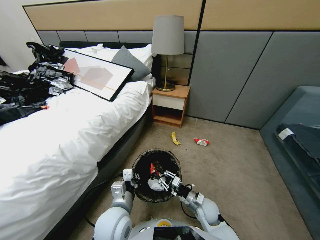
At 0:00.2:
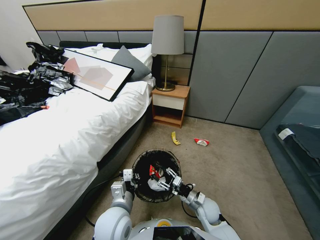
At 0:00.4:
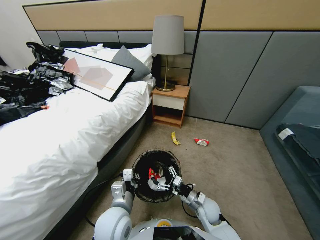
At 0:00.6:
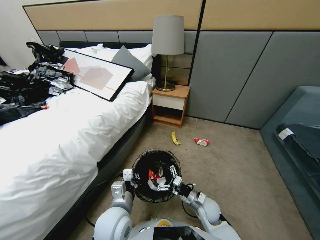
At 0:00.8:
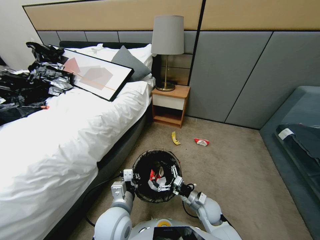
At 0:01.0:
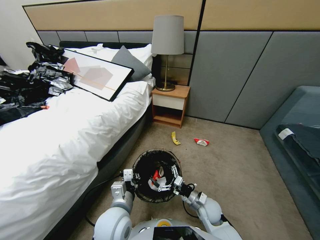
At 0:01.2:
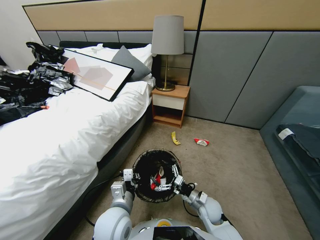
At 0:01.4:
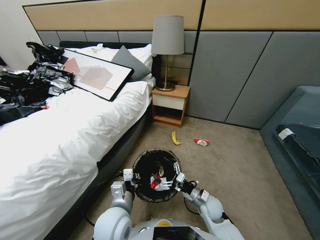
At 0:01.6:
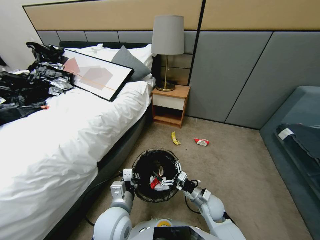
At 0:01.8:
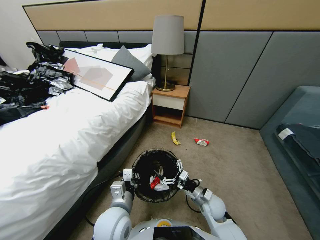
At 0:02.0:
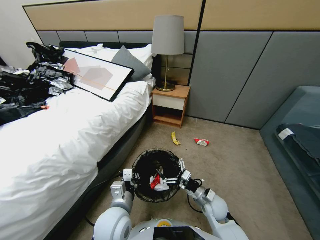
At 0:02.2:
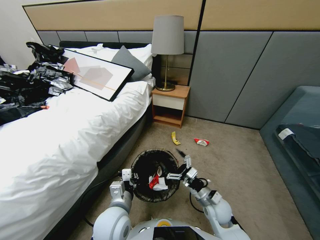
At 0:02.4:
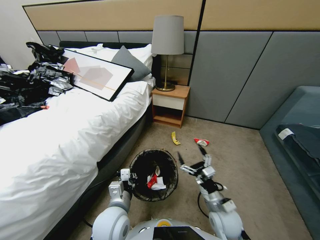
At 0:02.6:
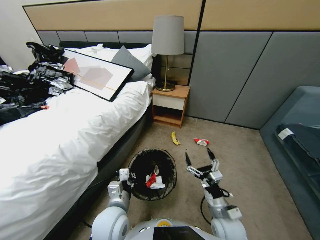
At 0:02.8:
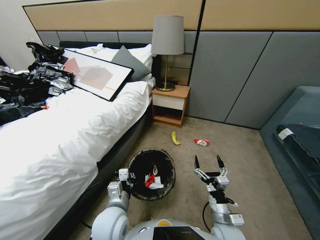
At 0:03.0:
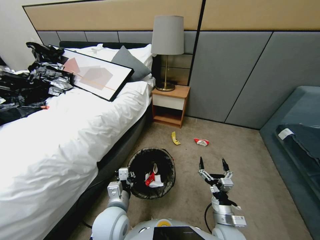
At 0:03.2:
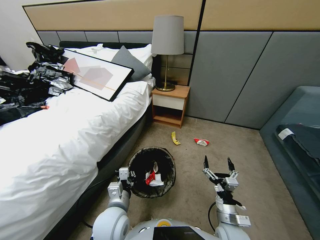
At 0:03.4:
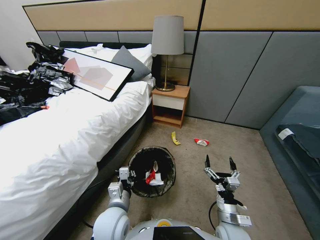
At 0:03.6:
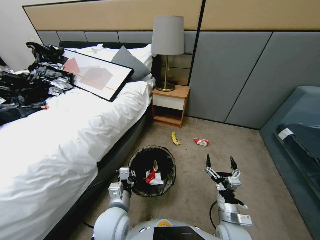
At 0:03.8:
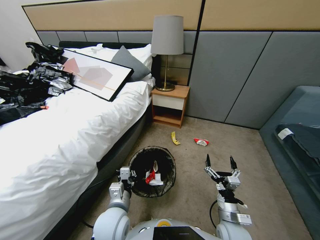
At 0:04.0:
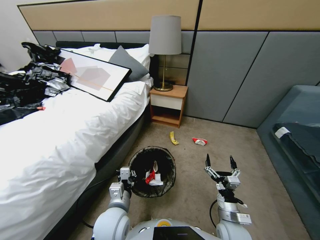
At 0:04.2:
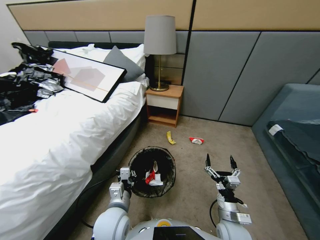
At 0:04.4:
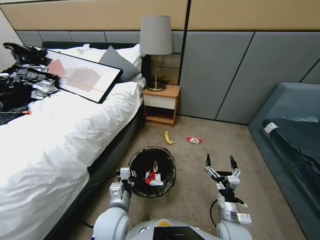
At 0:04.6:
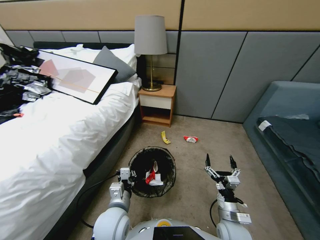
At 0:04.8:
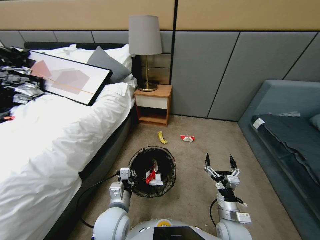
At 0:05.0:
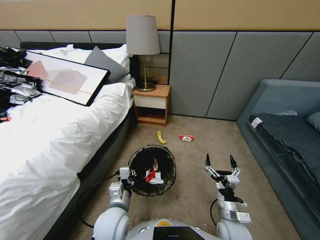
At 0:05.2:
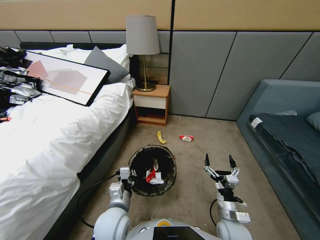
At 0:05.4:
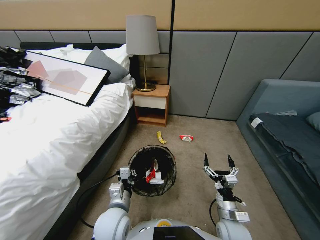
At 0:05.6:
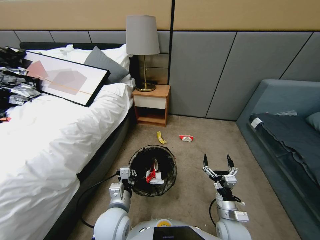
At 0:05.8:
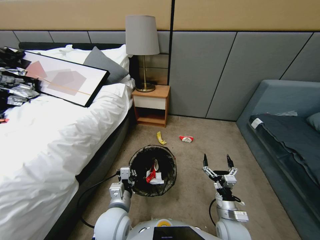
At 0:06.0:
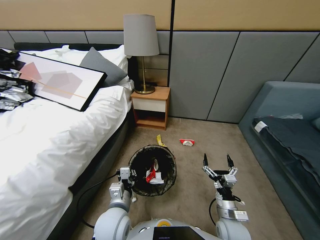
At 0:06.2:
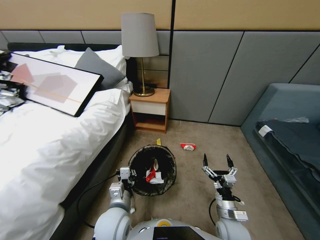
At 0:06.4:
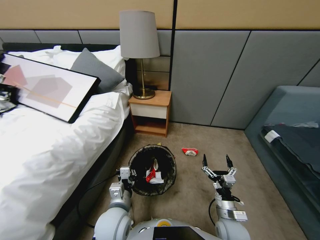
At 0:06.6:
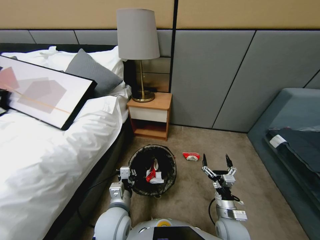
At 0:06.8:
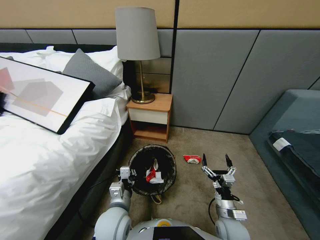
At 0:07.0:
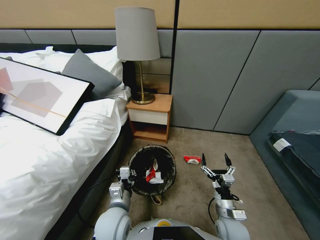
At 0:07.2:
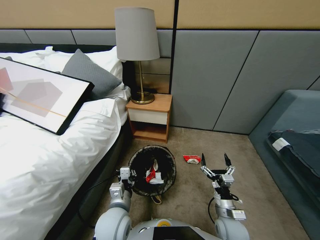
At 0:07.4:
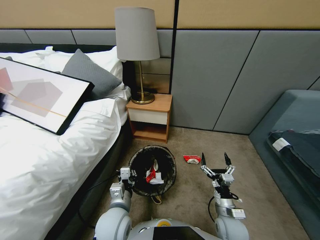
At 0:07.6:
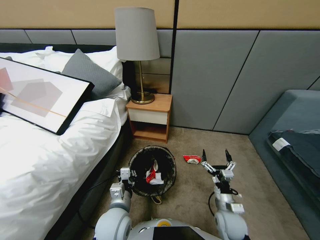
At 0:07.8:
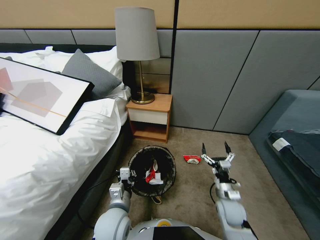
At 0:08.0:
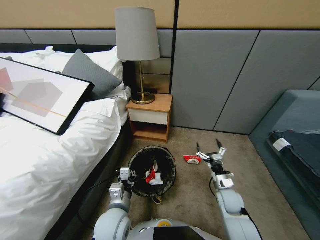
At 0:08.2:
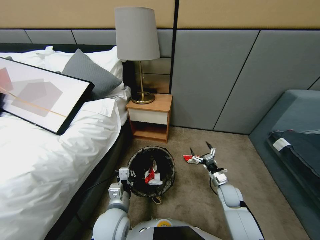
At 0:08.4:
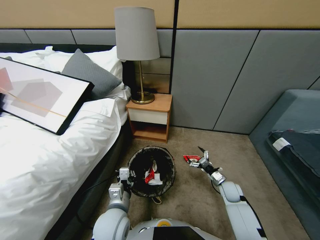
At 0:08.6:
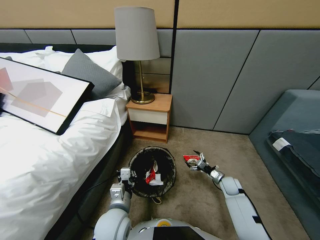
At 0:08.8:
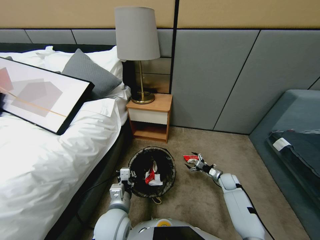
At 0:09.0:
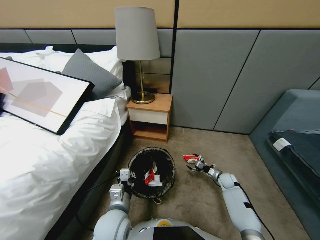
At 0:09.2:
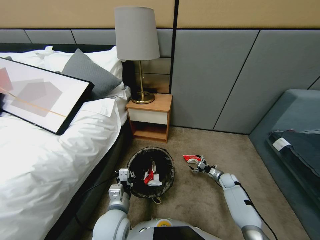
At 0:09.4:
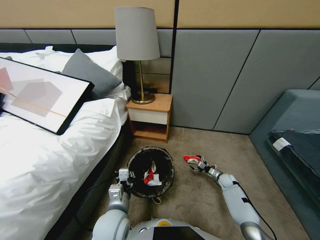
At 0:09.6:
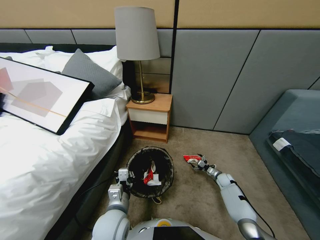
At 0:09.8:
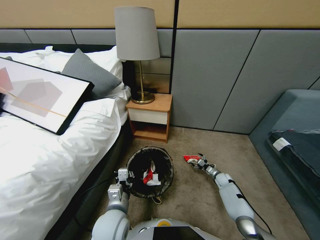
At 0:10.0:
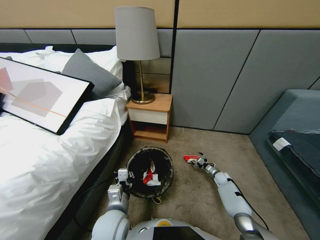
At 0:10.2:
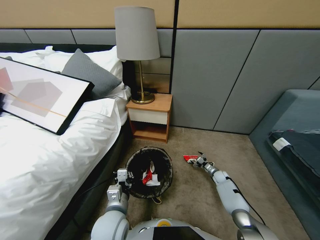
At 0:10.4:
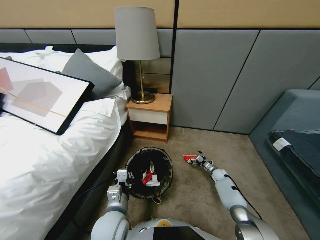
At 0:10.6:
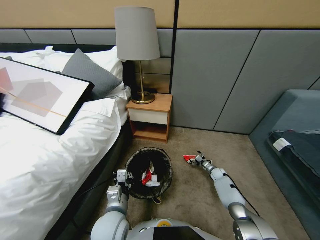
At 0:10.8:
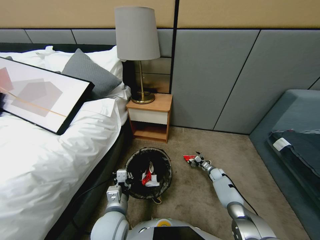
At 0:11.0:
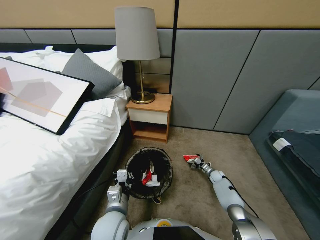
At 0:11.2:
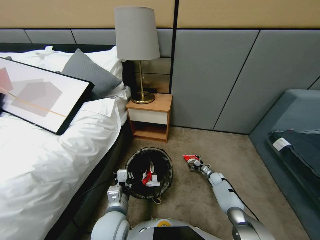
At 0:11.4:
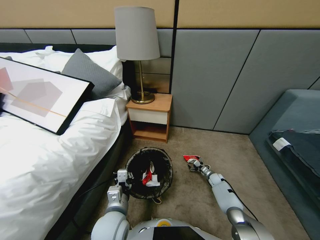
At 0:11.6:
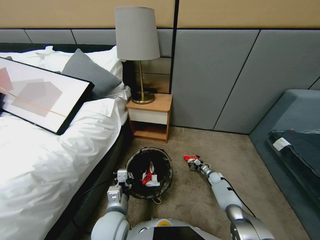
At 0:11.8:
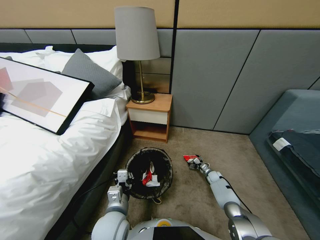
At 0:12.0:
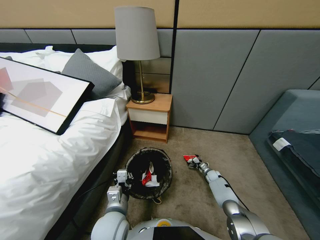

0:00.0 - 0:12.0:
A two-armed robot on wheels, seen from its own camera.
Task of the whole recording: Pick up the trash bin, then pick up the garbage from the floor and place it into the trash bin.
0:00.0 - 0:01.6: The right gripper opens.
0:01.6 - 0:03.0: The right gripper is displaced backward by approximately 10 cm.
0:06.0 - 0:07.6: The right gripper changes place by some 5 cm.
0:07.6 - 0:09.0: The right gripper moves forward, to the right and downward, roughly 25 cm.
0:09.0 - 0:10.4: The right gripper shifts about 5 cm forward.
0:10.4 - 0:12.0: The grippers move only a little.

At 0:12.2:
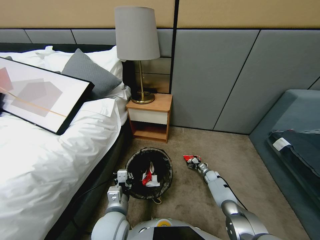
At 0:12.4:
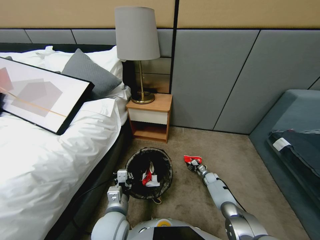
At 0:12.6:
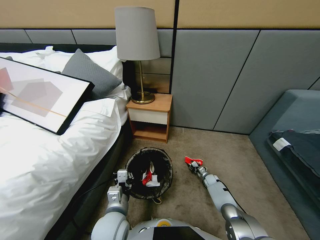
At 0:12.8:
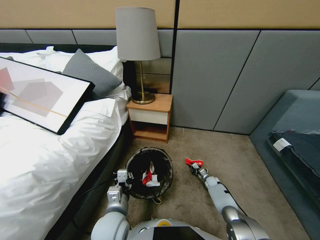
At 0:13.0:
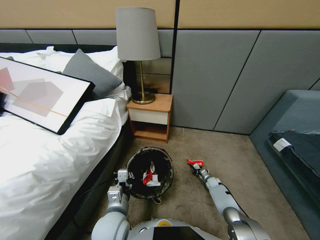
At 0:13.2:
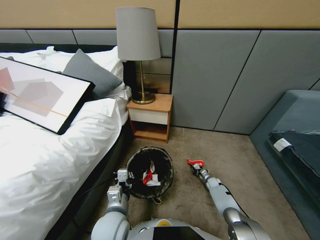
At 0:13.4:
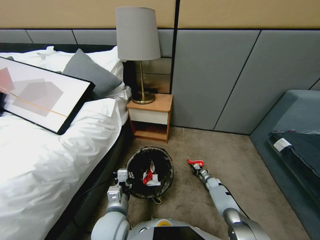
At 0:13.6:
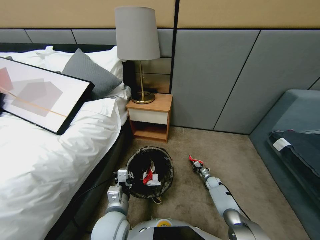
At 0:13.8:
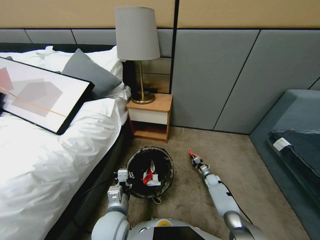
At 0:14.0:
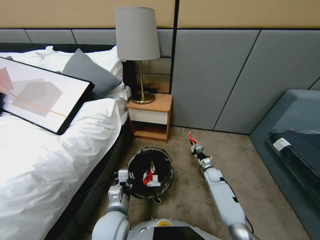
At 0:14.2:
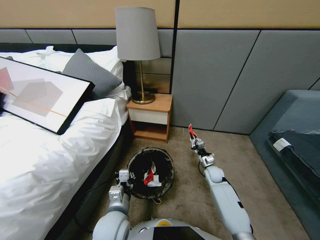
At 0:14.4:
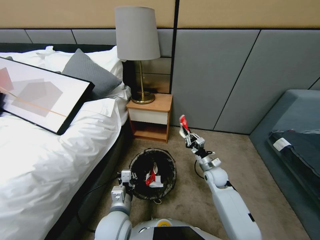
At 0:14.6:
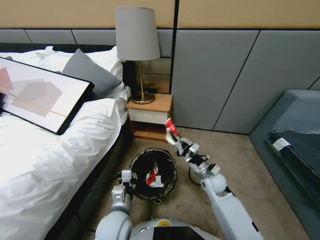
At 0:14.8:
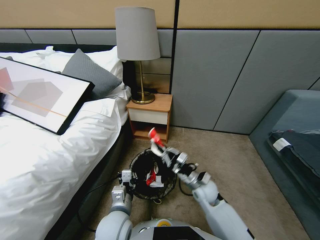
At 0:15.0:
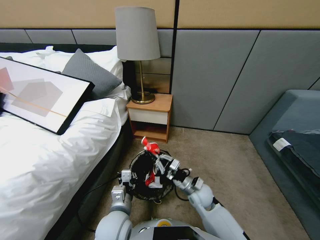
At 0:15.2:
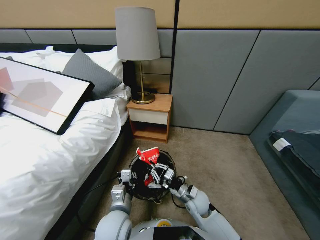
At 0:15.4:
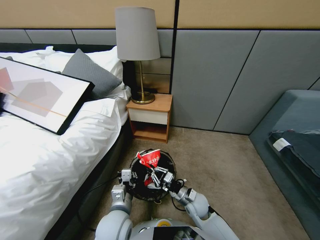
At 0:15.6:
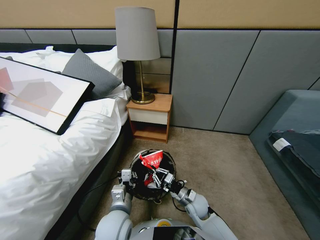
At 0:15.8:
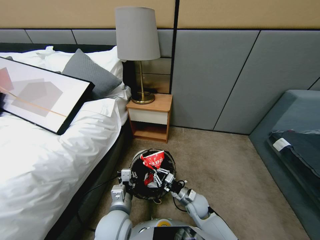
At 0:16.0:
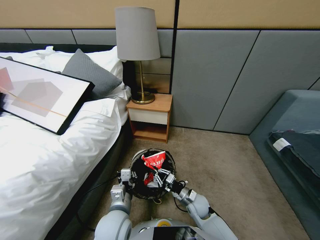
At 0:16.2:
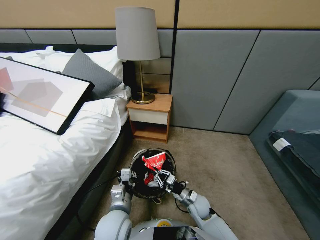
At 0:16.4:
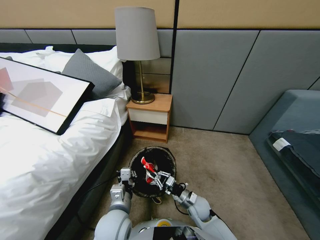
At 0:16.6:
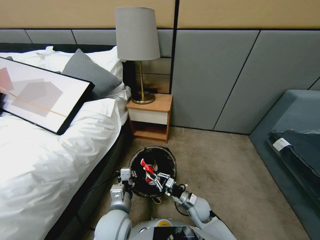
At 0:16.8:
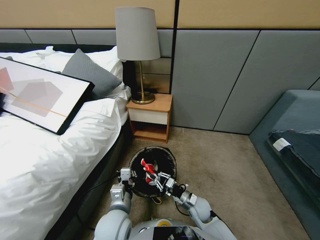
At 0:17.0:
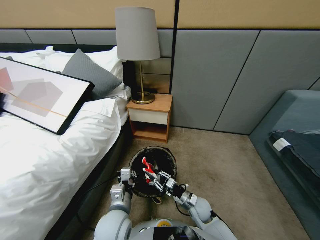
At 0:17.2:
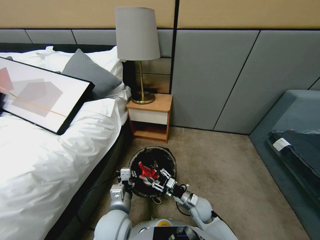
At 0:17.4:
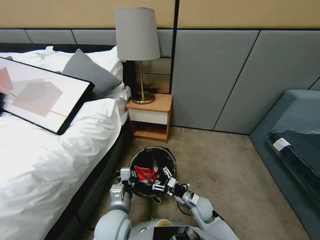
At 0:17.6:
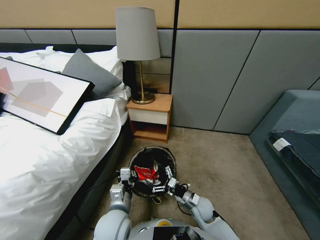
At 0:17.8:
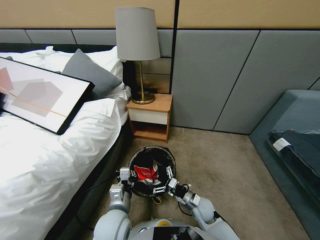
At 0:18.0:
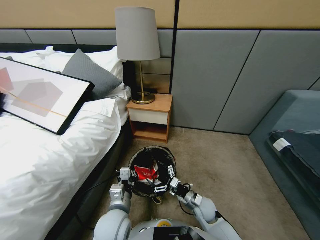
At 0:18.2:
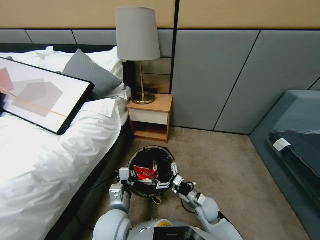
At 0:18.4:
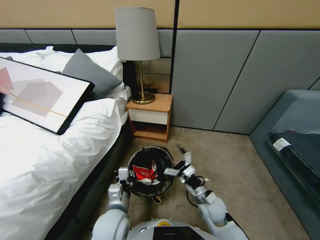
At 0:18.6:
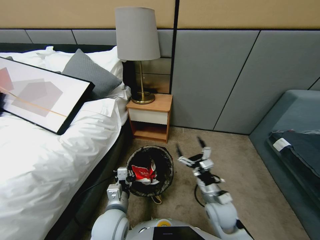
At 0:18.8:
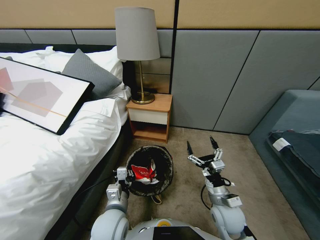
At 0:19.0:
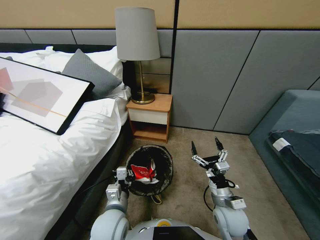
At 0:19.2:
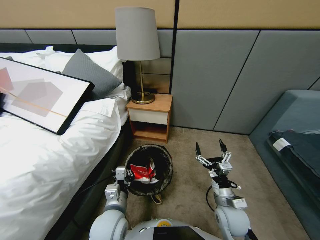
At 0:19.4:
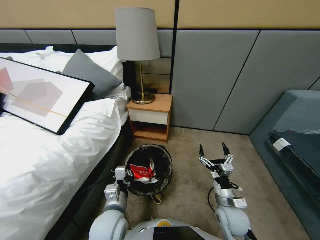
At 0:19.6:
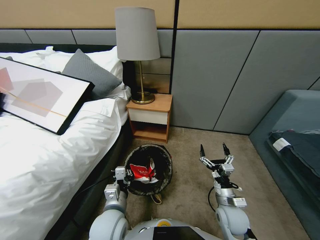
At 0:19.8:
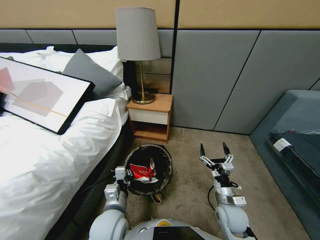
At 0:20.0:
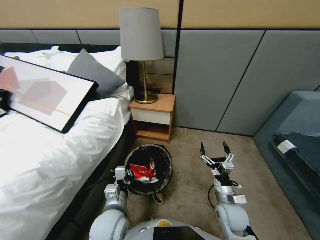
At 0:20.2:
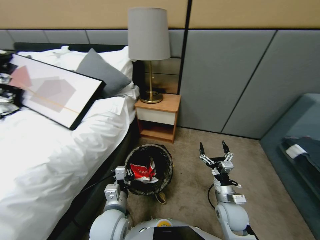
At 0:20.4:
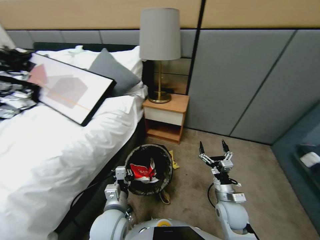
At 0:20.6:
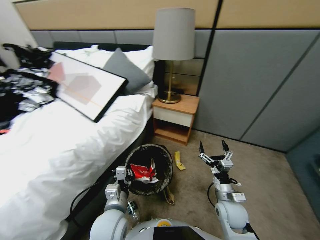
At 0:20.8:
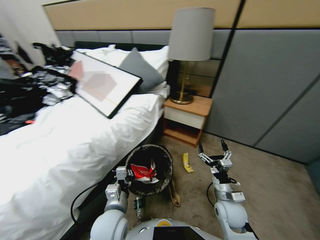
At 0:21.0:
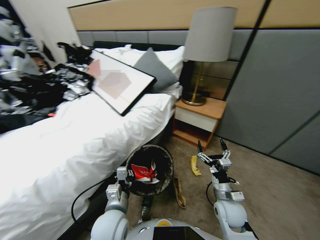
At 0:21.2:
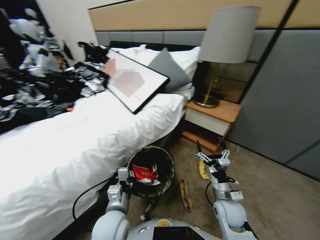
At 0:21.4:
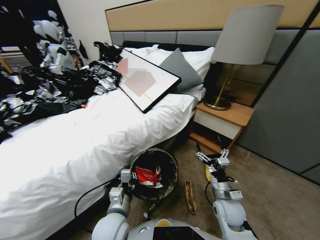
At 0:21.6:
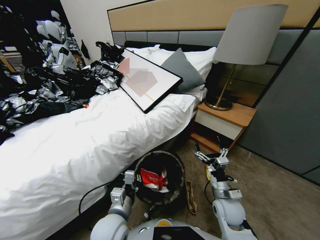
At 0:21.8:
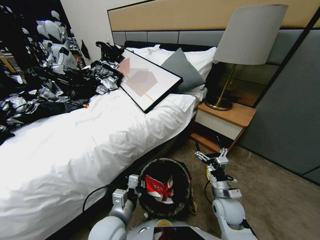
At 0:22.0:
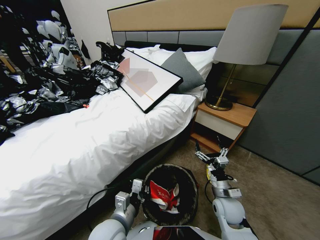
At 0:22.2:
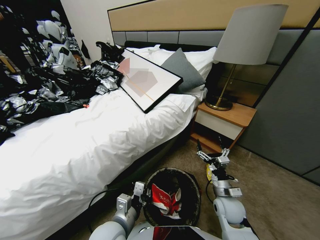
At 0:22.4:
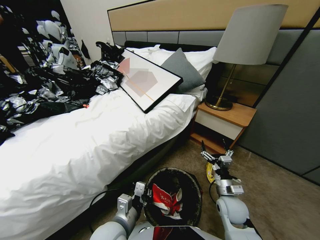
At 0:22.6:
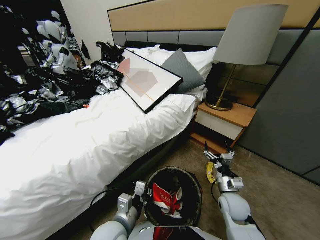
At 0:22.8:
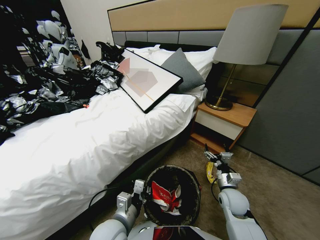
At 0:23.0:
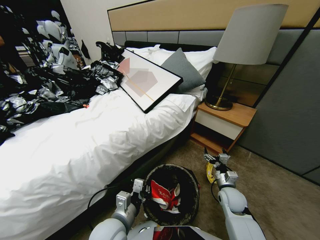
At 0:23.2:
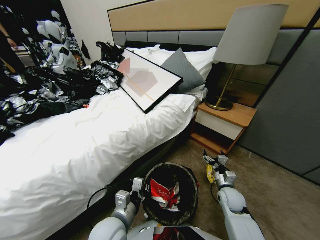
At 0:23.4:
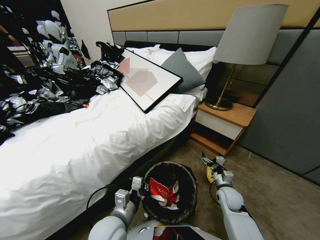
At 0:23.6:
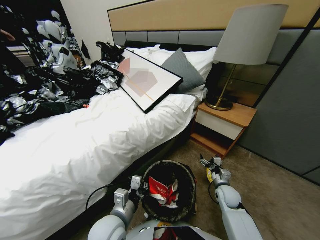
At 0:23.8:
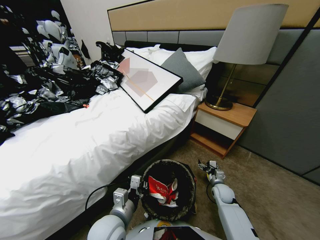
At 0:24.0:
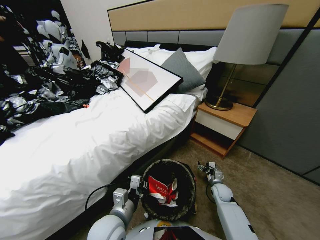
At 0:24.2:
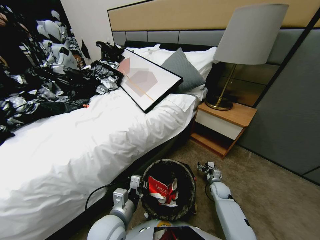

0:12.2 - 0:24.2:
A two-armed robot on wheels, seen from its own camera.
Task of the whole recording: Pick up the trash bin, then pick up the garbage from the floor and place it into the trash bin.
0:12.2 - 0:13.8: The right gripper shifts some 5 cm upward, and closes its fingers.
0:13.8 - 0:15.2: The right gripper moves to the left, backward and upward, approximately 30 cm.
0:15.2 - 0:16.6: The right gripper moves approximately 5 cm.
0:16.6 - 0:18.2: The right gripper is displaced upward by about 5 cm, and opens its fingers.
0:18.2 - 0:19.8: The right gripper heads to the right, covering roughly 5 cm.
0:21.2 - 0:22.6: The right gripper moves approximately 5 cm.
0:22.6 - 0:24.2: The right gripper travels downward and forward by about 20 cm.
